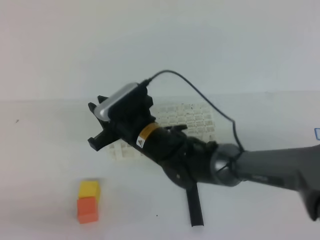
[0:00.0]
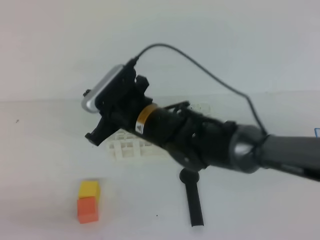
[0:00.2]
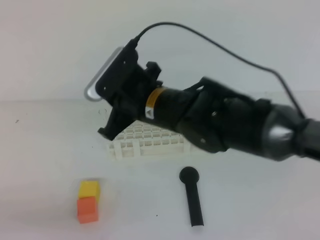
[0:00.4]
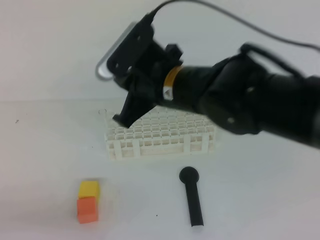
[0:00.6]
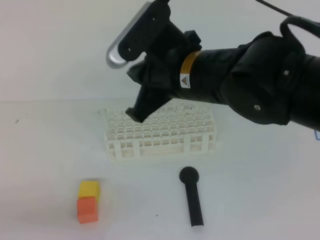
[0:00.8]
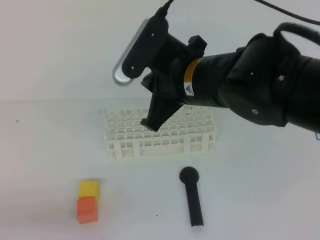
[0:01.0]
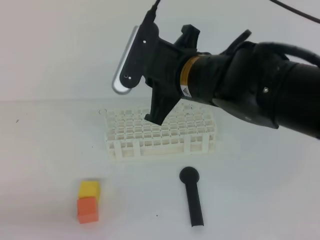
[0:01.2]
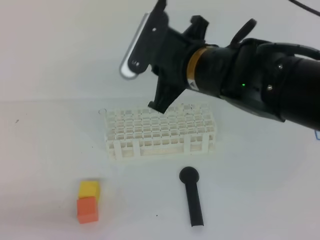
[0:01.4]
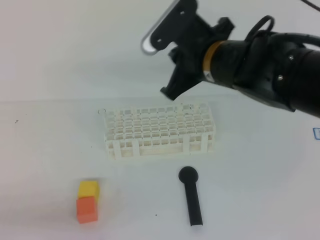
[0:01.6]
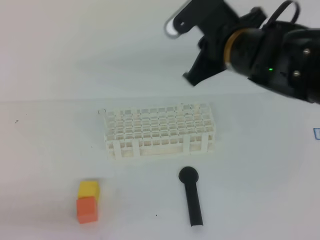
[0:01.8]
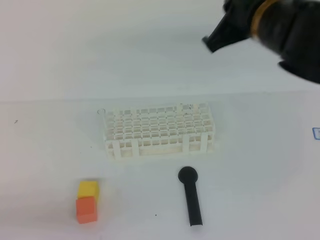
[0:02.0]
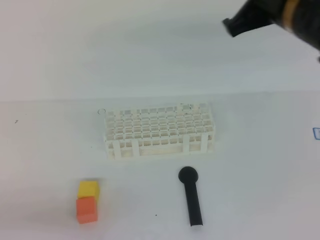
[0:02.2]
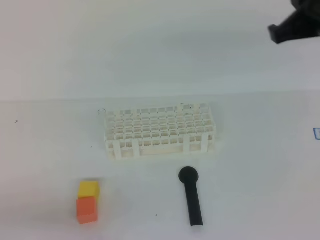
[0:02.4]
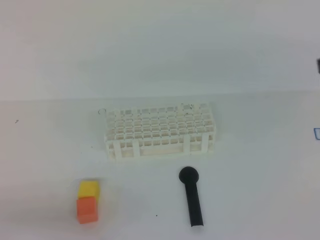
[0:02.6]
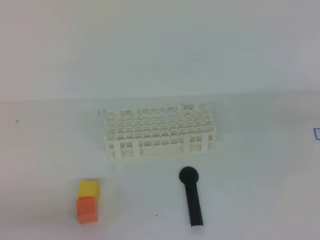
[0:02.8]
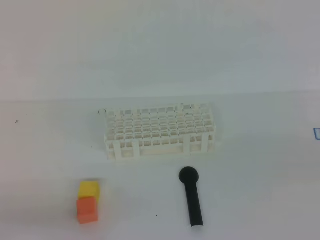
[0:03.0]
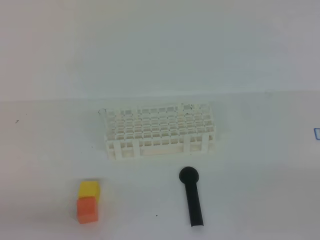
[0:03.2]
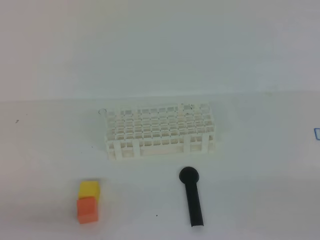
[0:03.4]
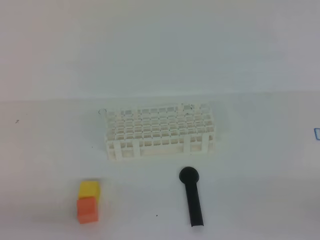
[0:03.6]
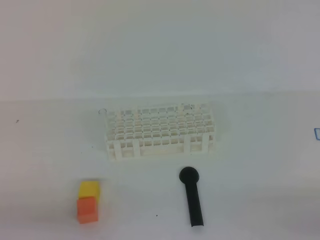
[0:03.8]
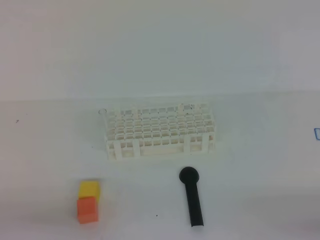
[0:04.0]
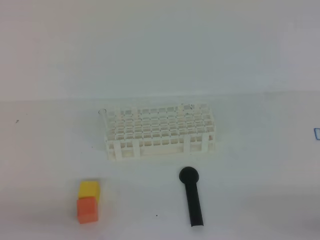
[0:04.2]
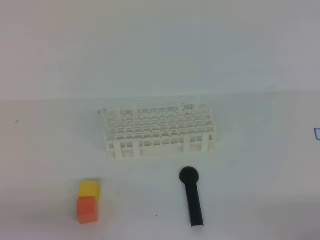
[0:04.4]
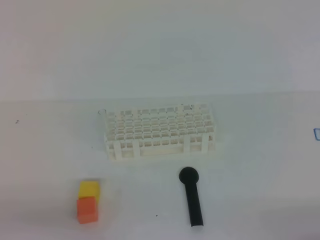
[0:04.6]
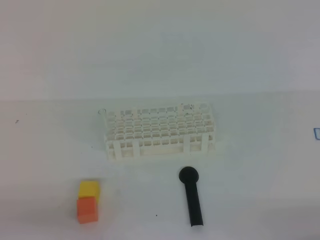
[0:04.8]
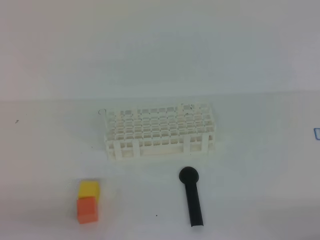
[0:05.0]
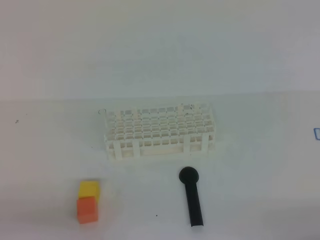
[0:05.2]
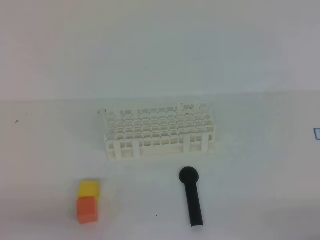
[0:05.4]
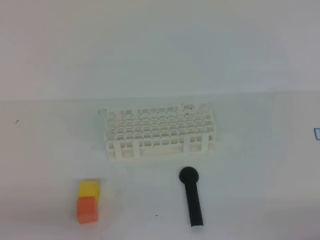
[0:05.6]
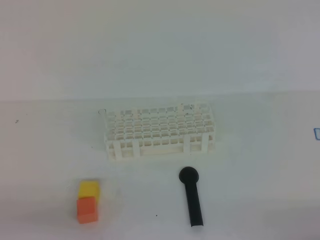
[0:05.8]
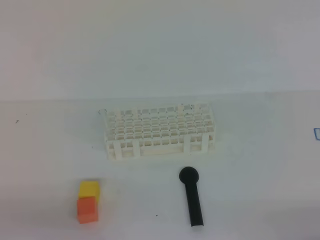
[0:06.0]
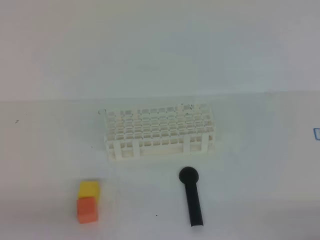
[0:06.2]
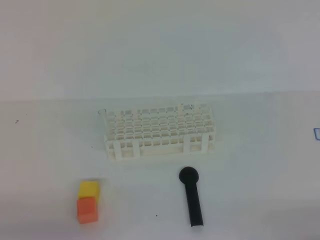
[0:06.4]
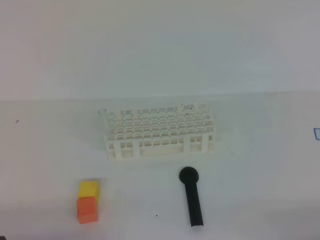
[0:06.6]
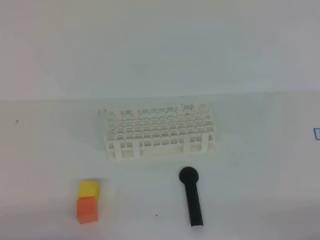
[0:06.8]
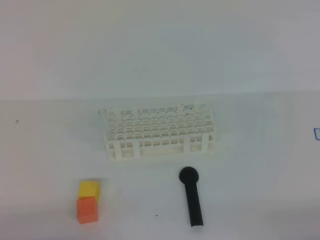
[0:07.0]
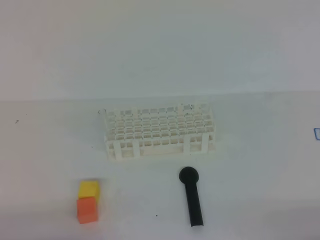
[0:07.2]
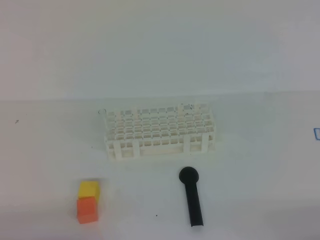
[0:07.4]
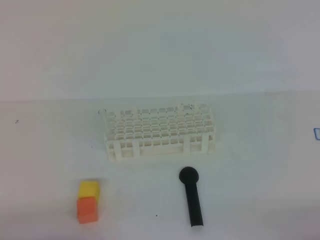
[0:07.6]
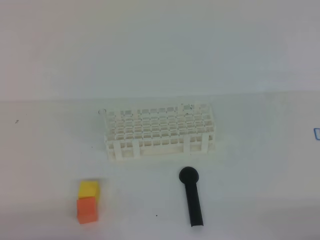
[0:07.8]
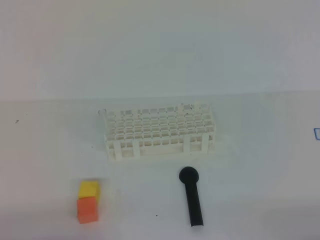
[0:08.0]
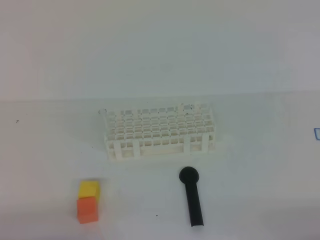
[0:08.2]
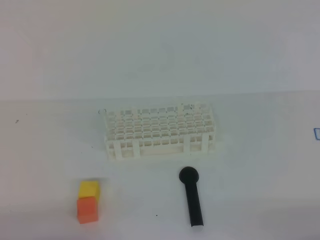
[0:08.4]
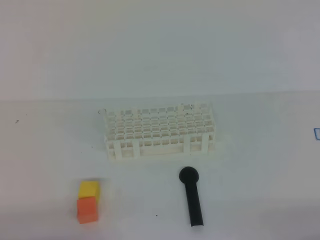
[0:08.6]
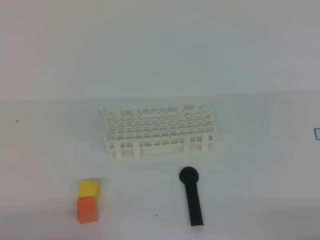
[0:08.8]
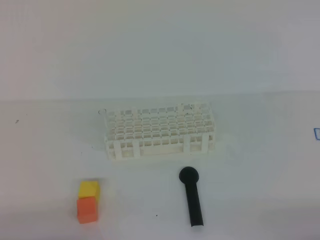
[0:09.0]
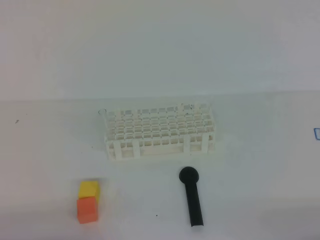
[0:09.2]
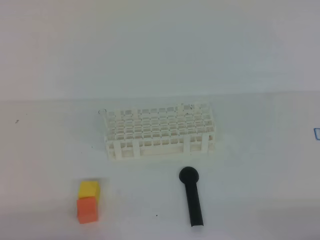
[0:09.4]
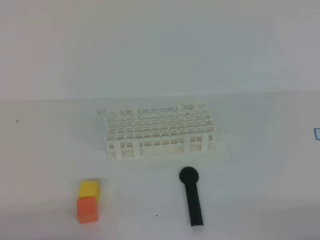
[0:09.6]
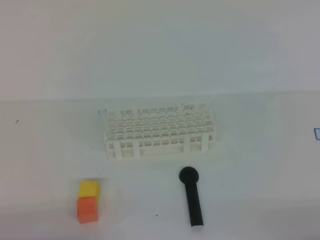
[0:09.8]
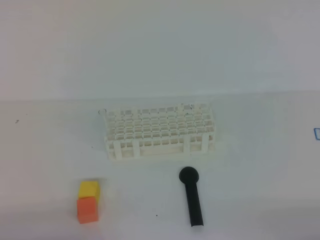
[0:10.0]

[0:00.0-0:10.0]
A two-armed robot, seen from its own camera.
0:00.0 to 0:01.4: The right gripper moves upward and to the right, approximately 15 cm, and closes.
0:01.4 to 0:02.8: The right gripper shifts roughly 25 cm to the right.
0:02.8 to 0:04.2: The right gripper goes about 20 cm backward and downward.
0:07.2 to 0:10.0: Both grippers stay put.
